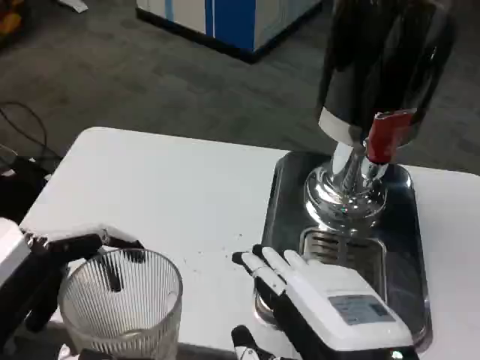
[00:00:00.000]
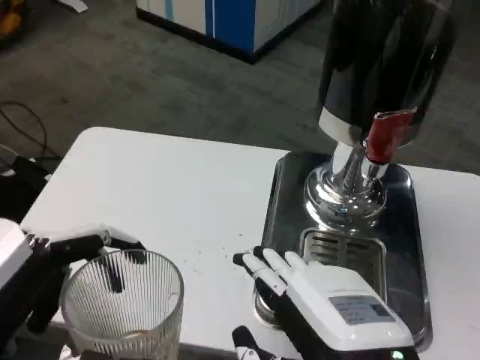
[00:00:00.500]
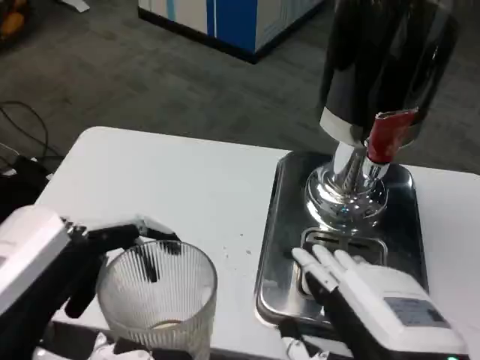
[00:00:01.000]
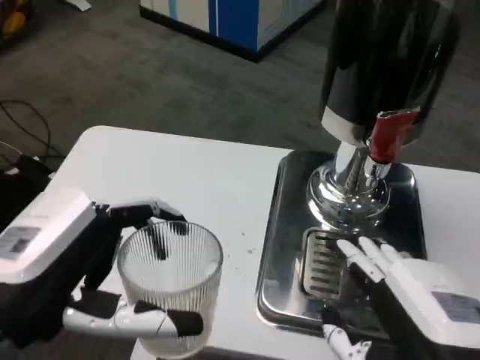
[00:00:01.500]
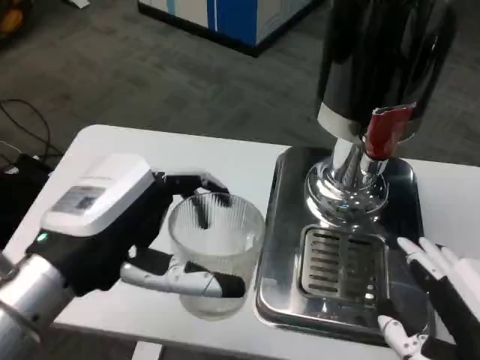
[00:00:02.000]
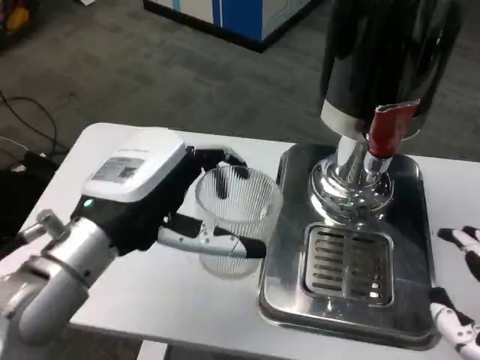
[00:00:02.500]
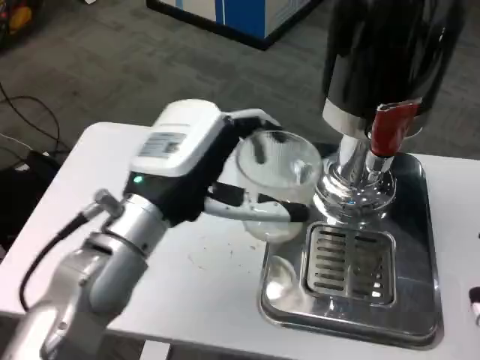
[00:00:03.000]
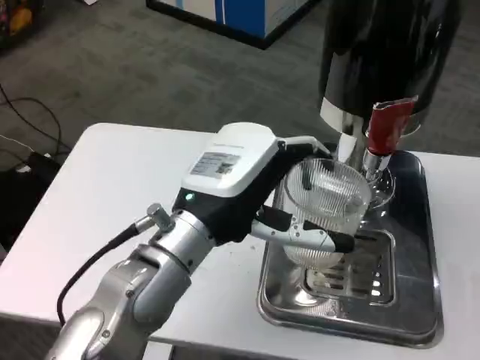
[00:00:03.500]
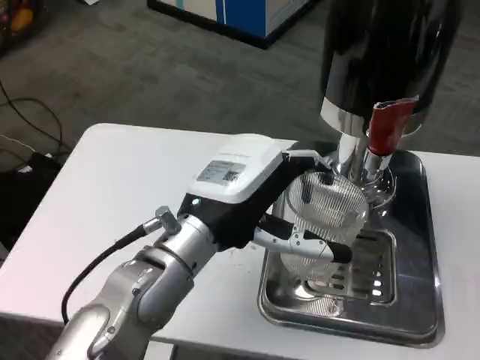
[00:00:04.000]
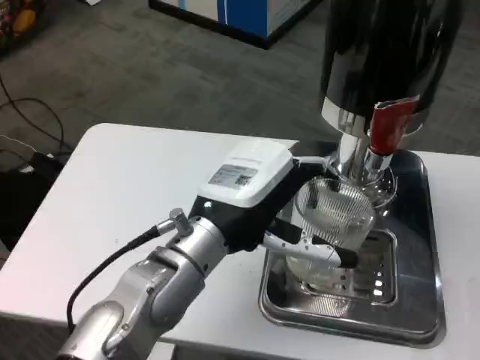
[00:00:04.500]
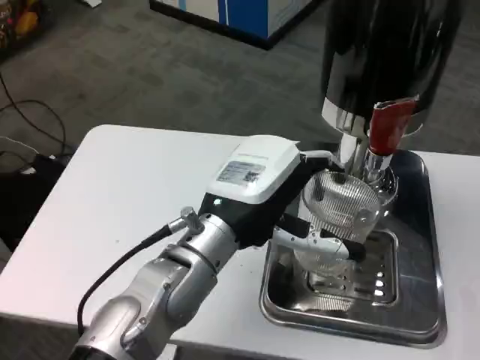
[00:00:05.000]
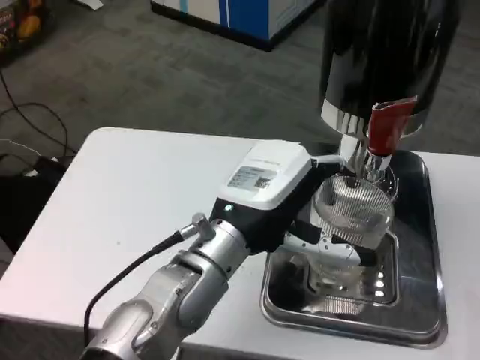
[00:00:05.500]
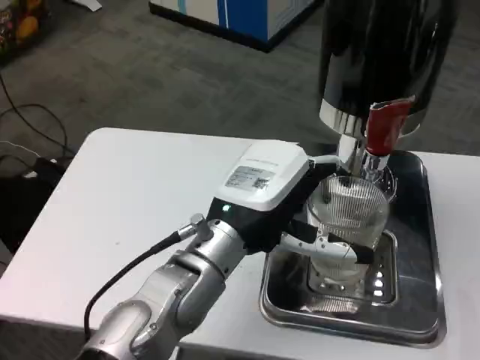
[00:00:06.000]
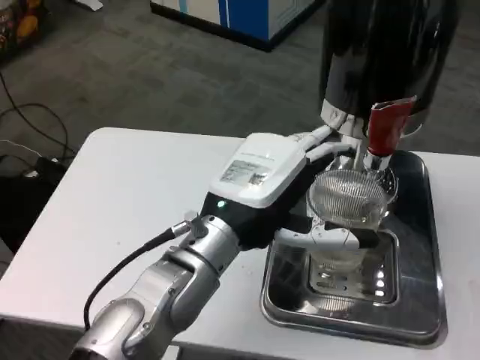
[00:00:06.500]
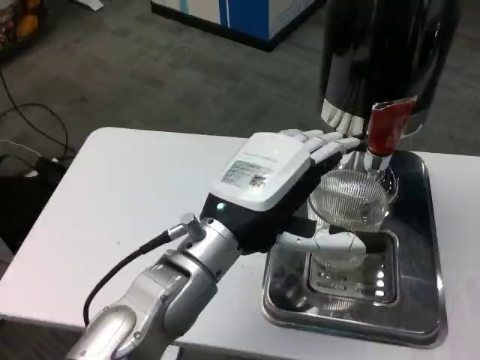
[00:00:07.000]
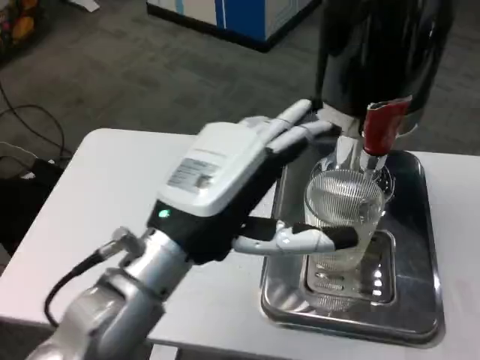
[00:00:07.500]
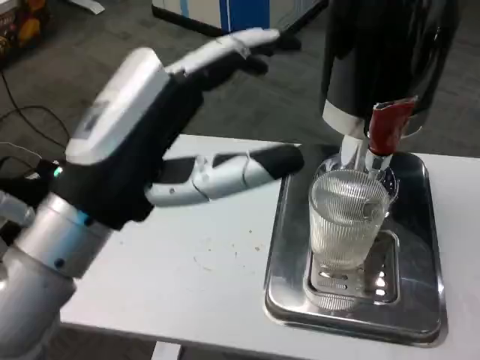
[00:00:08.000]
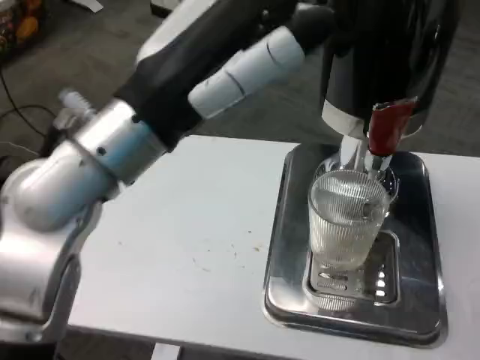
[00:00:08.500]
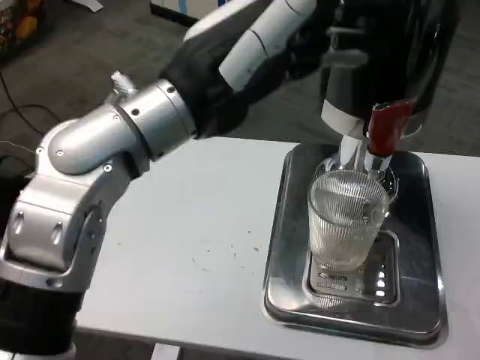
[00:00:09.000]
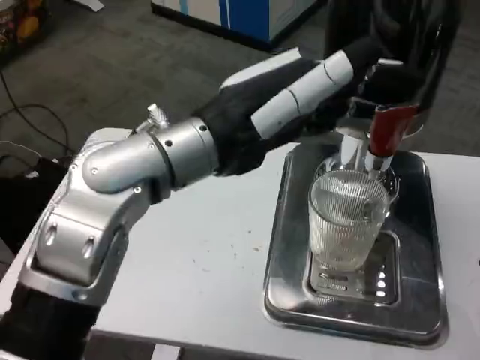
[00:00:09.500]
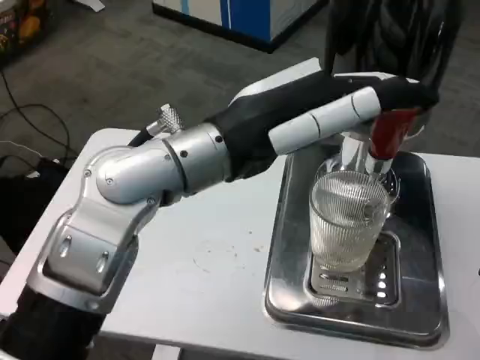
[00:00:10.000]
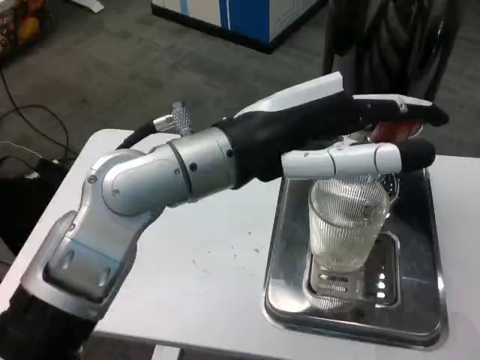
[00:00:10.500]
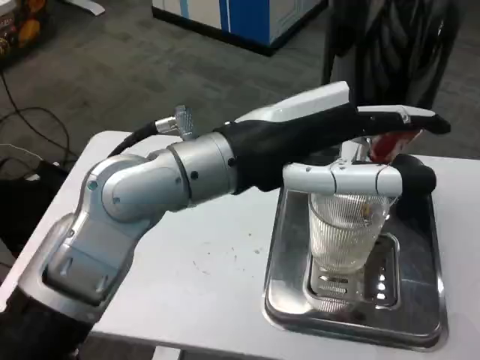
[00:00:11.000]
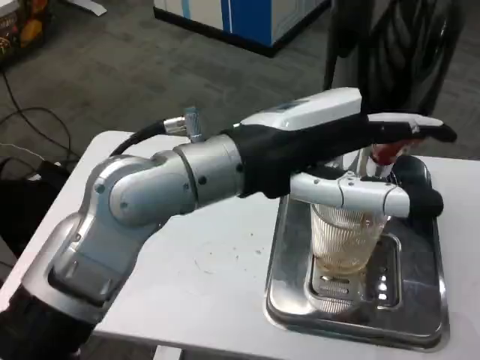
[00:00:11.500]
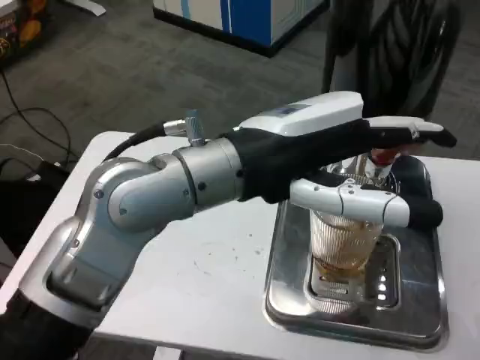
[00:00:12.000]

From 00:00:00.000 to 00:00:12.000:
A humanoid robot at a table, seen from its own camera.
Task of the whole recording: Grasp the cup under the faucet to collect the drink, then remove the cup.
From 00:00:00.000 to 00:00:02.000: The right hand shifts about 10 cm to the right; the left hand goes about 10 cm forward.
From 00:00:02.000 to 00:00:04.000: The right hand travels to the right by about 5 cm. Meanwhile the left hand travels to the right and forward by about 15 cm.
From 00:00:06.000 to 00:00:08.000: The left hand goes some 15 cm backward, upward and to the left.
From 00:00:08.000 to 00:00:10.000: The left hand goes some 10 cm forward and to the right.

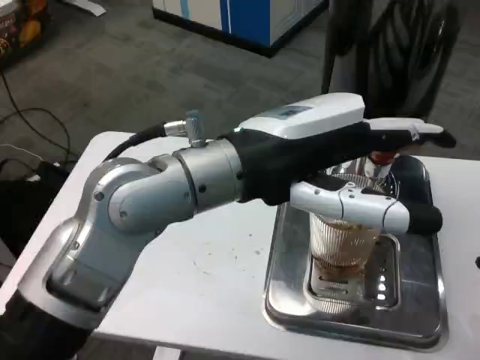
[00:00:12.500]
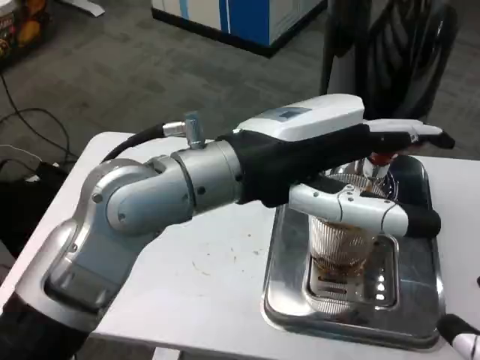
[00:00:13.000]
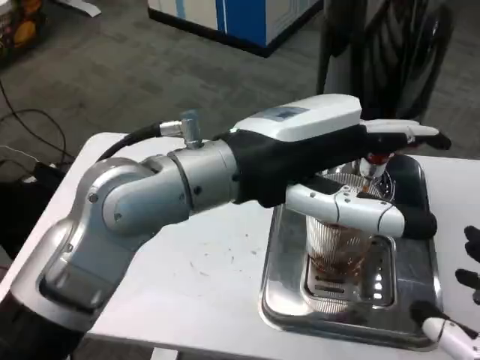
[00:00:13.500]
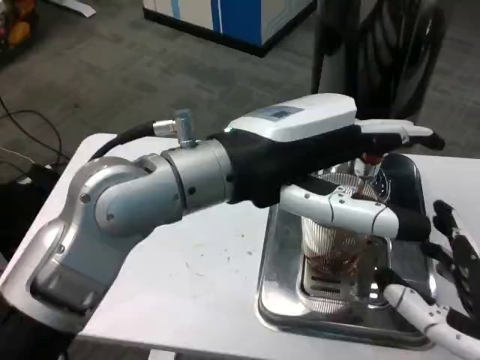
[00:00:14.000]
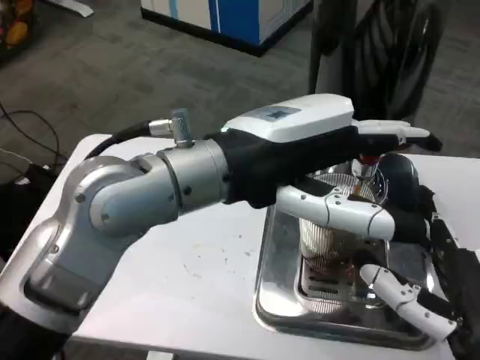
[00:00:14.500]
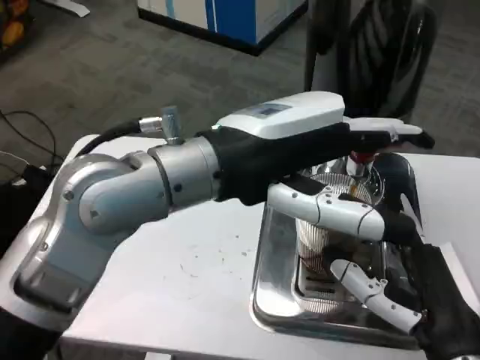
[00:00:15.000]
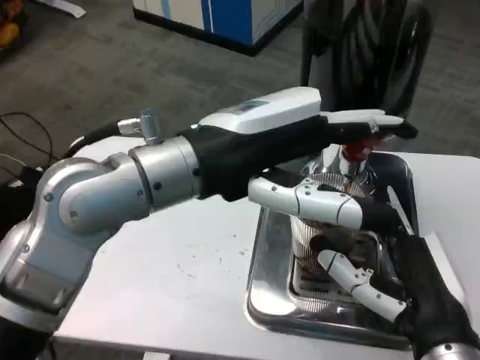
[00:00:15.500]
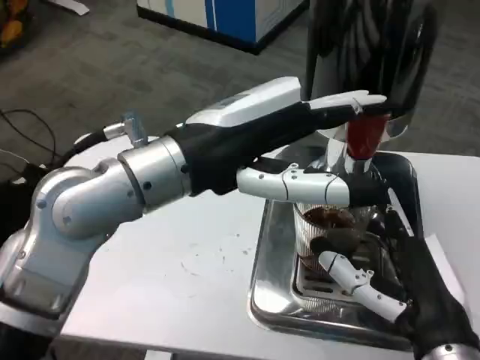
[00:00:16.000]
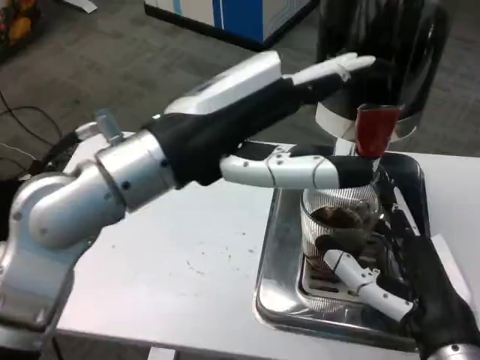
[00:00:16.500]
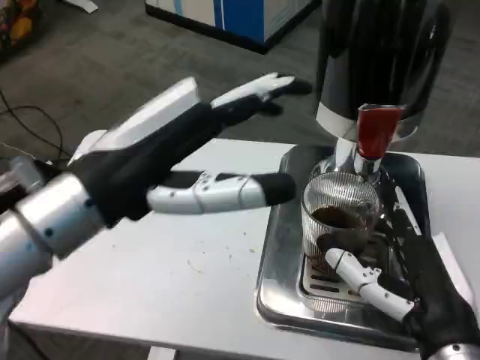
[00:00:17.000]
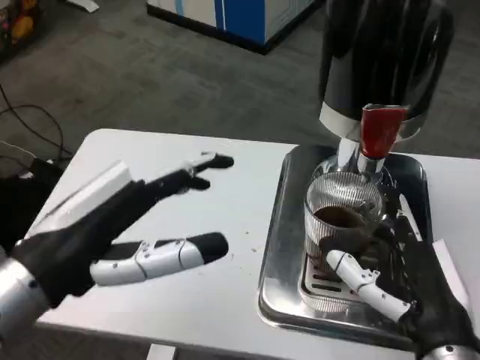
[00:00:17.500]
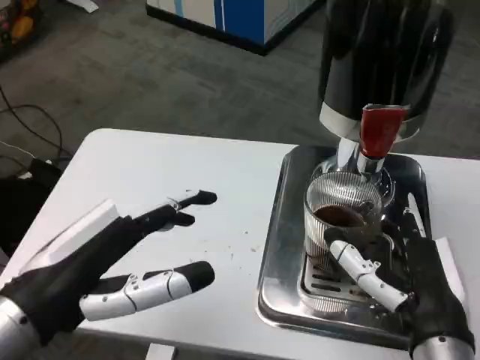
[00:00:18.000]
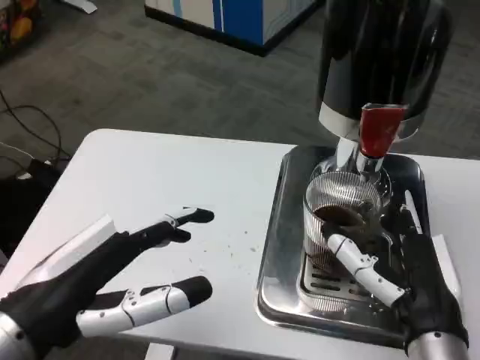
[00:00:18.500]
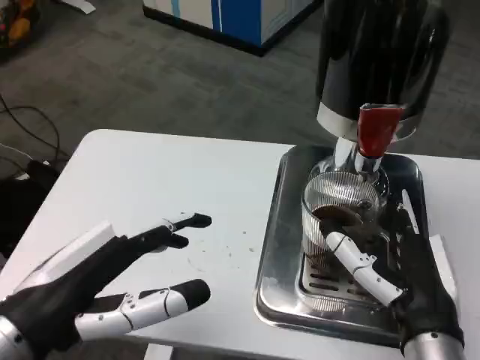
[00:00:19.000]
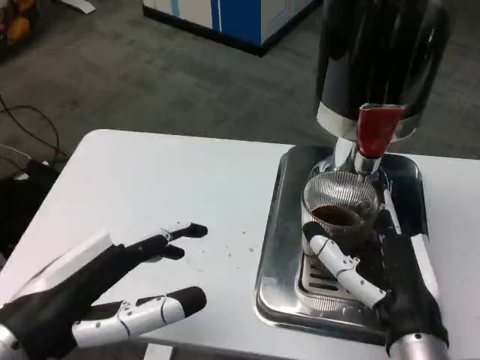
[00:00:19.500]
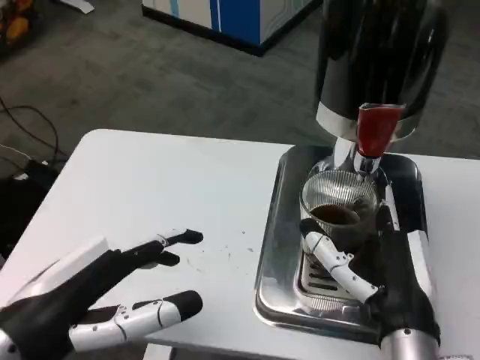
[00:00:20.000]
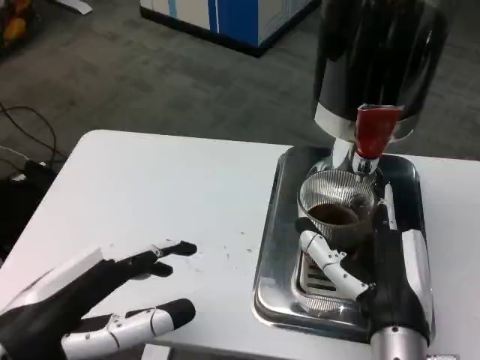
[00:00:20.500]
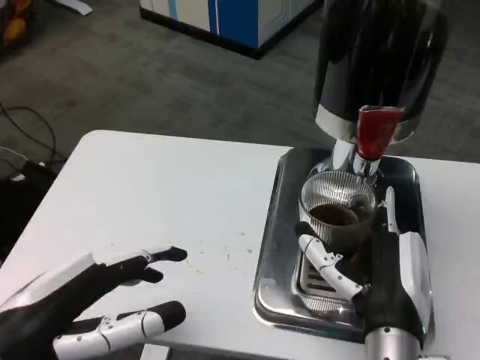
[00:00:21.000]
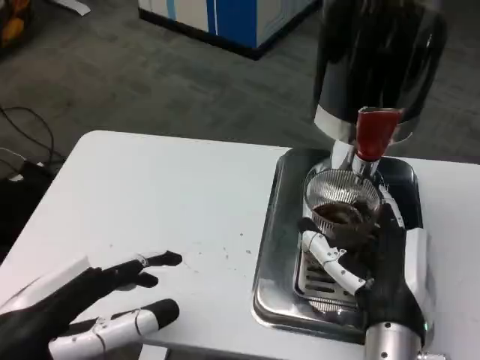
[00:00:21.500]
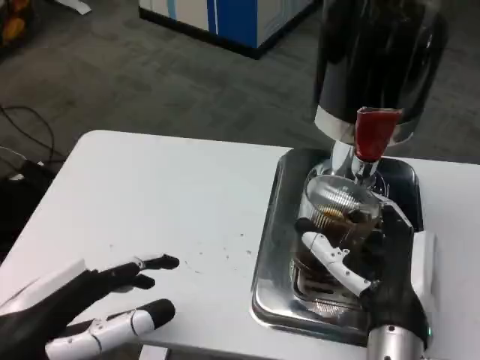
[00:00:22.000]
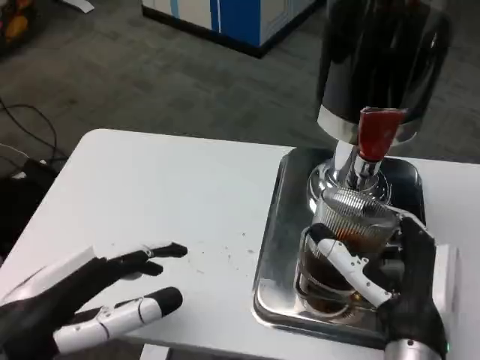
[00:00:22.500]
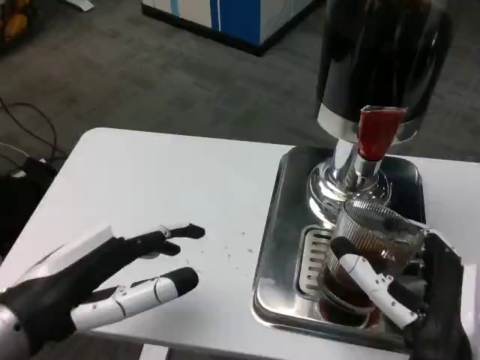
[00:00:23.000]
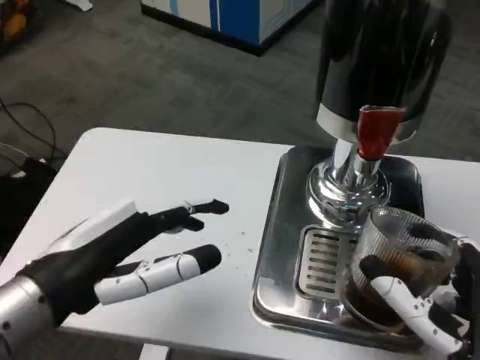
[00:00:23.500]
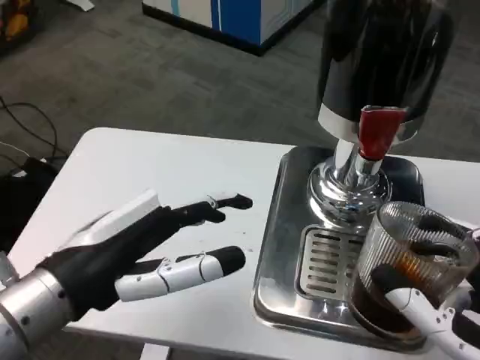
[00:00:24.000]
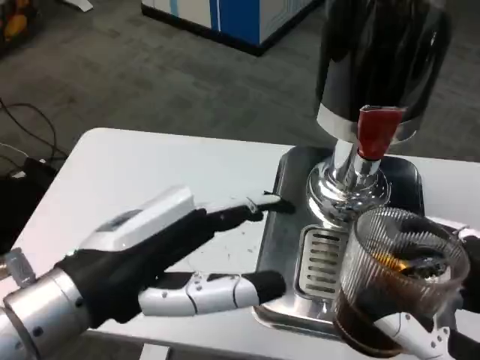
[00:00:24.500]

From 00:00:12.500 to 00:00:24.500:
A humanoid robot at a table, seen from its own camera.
Task of the whole recording: Grasp the cup under the faucet to collect the drink, then remove the cup.
From 00:00:12.500 to 00:00:14.500: The right hand is displaced forward, to the left and downward by about 15 cm.
From 00:00:16.500 to 00:00:18.500: The left hand shifts some 15 cm downward, to the left and backward.
From 00:00:22.500 to 00:00:24.500: The left hand is displaced to the right by roughly 5 cm; the right hand shifts approximately 10 cm backward and to the right.

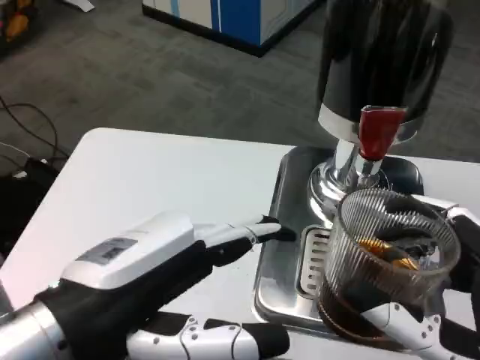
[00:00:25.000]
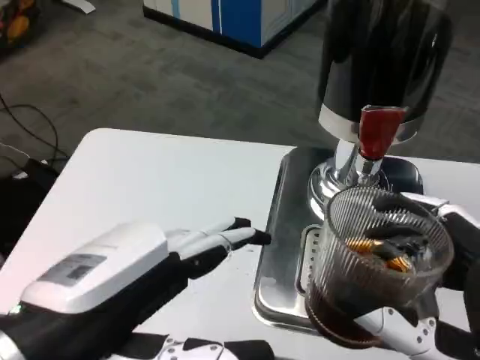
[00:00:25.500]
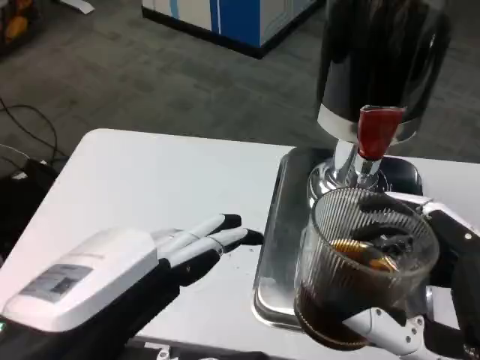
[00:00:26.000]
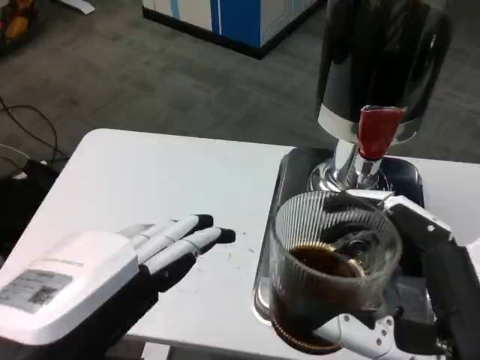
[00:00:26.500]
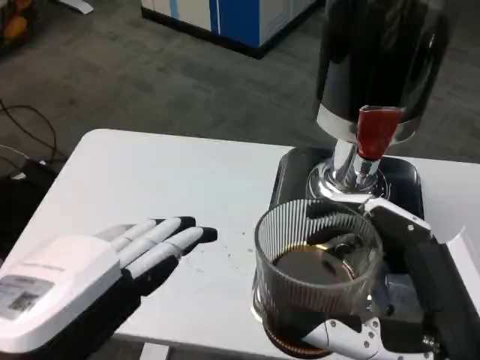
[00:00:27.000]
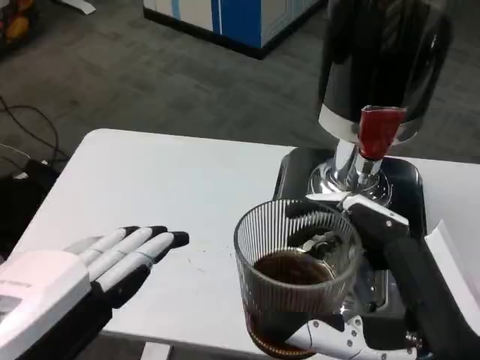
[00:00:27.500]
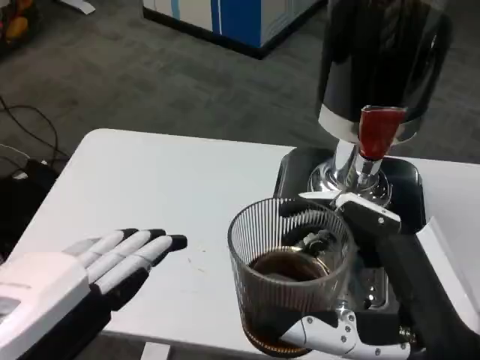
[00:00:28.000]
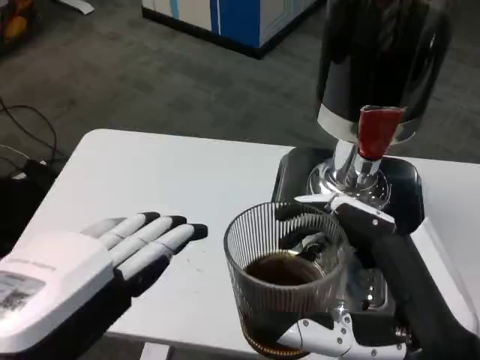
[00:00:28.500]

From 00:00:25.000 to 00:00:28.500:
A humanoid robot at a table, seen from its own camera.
Task of the whole recording: Grasp the cup under the faucet to collect the drink, then remove the cup.
From 00:00:25.000 to 00:00:27.000: The left hand travels backward by approximately 5 cm.
